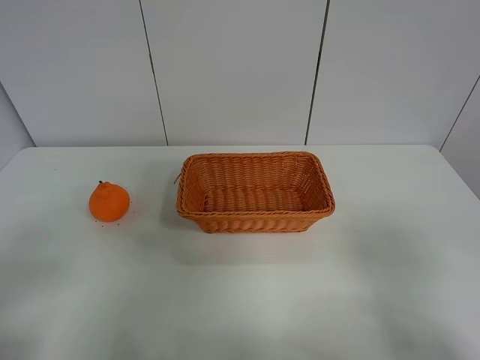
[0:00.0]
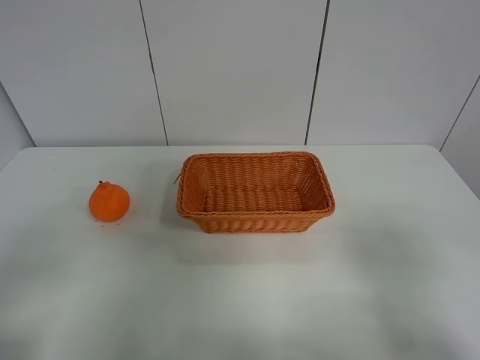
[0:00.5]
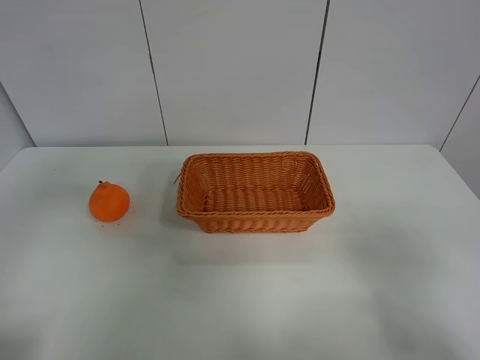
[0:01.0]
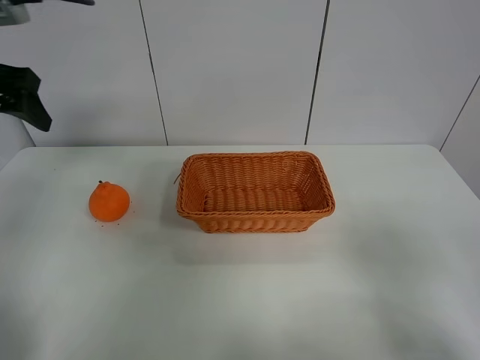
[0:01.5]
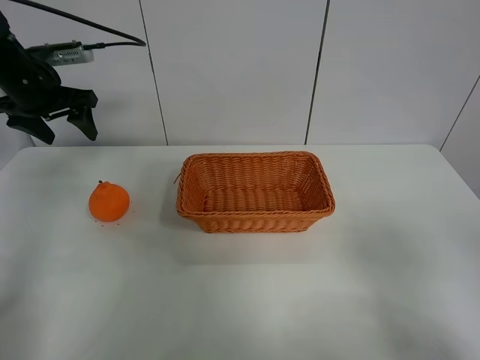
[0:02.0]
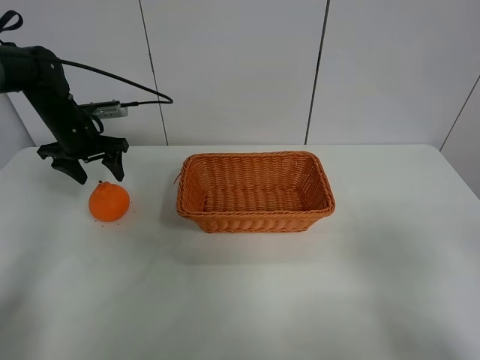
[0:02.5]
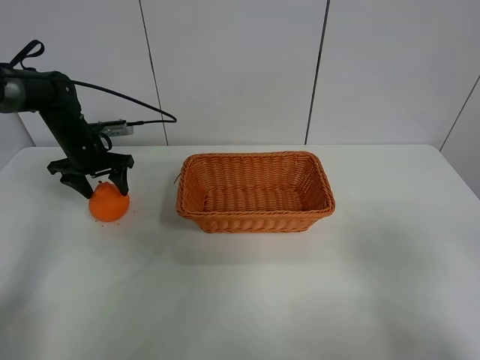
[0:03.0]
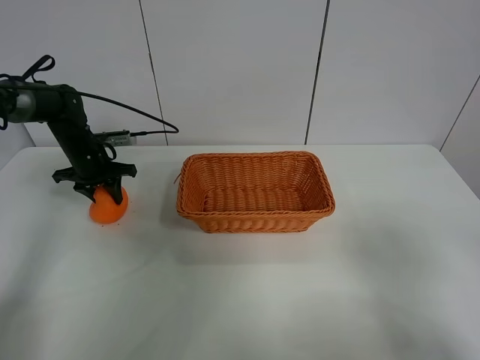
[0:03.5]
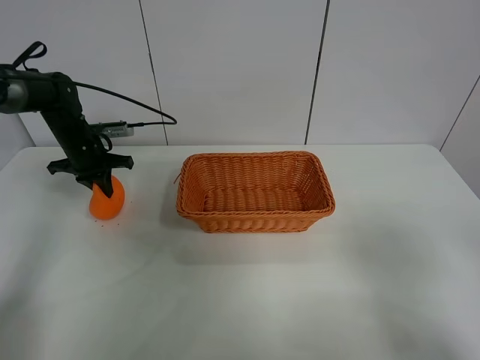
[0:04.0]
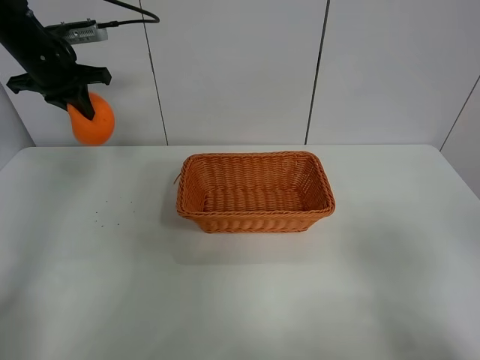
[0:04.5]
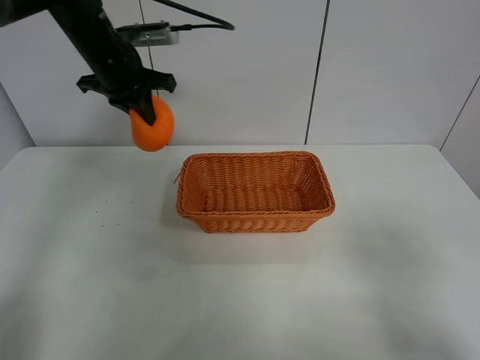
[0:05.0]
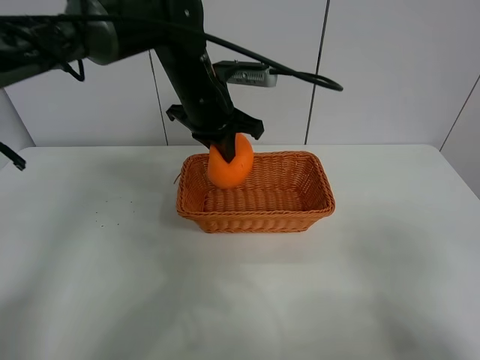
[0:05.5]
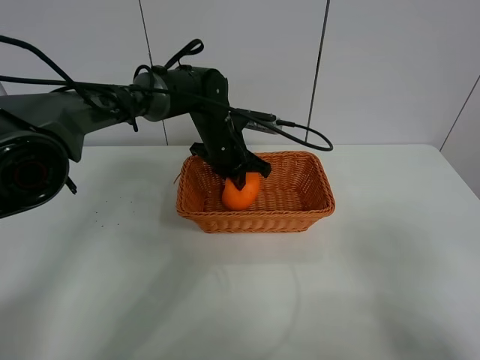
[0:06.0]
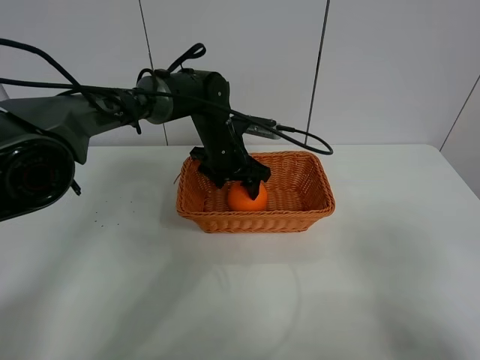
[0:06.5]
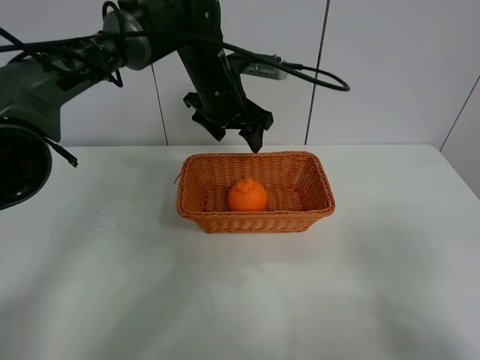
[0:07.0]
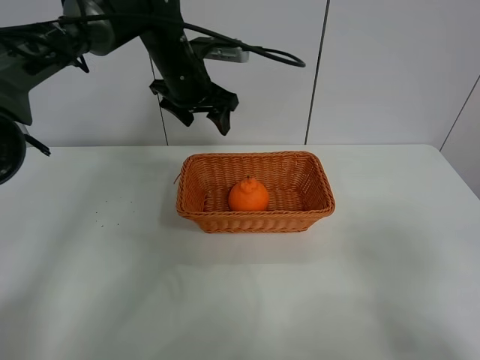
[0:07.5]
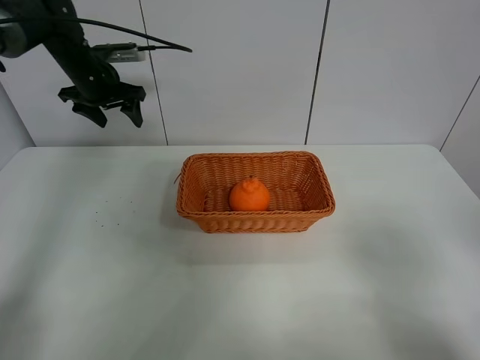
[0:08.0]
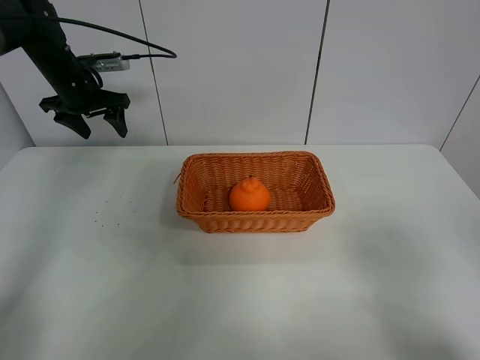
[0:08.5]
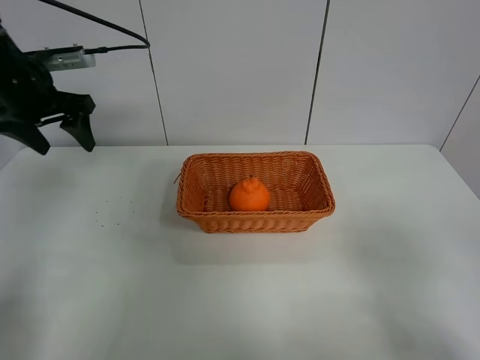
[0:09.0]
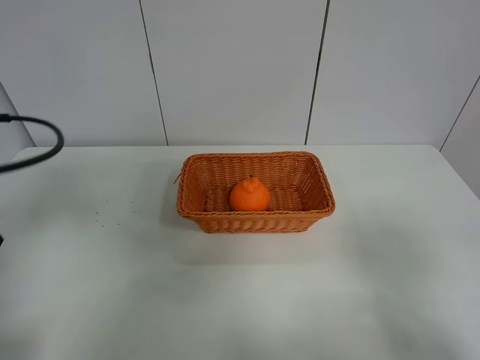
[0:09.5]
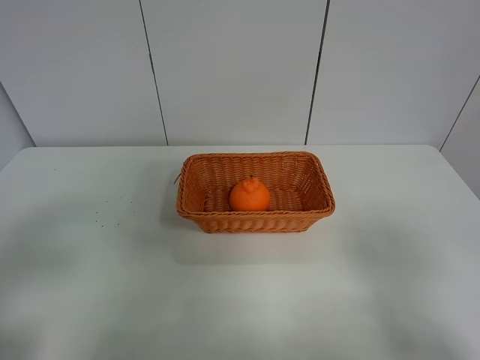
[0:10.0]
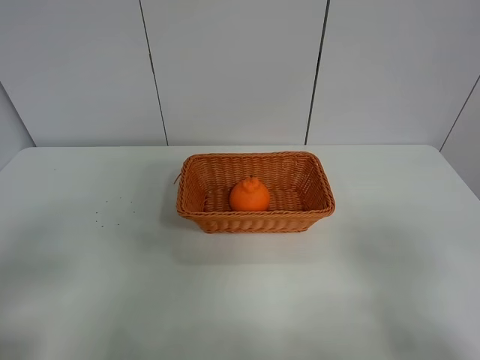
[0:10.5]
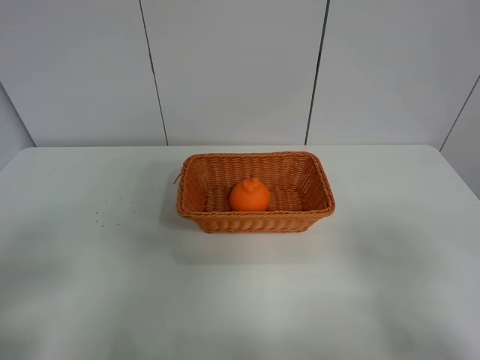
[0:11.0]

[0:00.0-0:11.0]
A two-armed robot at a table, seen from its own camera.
Task of the whole recording: left gripper grabs oranges and puts them in the basket.
Step, 0:00.0 to 0:03.5: Grasp the orange with left gripper.
Step, 0:04.0 to 0:07.5: Place the orange in the basket with left gripper.
0:00.0 to 0:02.0: The left gripper travels forward by roughly 40 cm.
0:02.0 to 0:03.5: The left gripper heads downward, covering roughly 15 cm, and closes.
0:03.5 to 0:05.5: The left gripper is displaced to the right and upward by roughly 30 cm, and closes.
0:05.5 to 0:07.5: The left gripper goes about 5 cm forward, moves approximately 10 cm downward and comes back, and opens.
0:07.5 to 0:09.0: The left gripper heads to the left and backward, covering about 25 cm.
0:09.0 to 0:11.0: The left gripper shifts about 35 cm backward.
